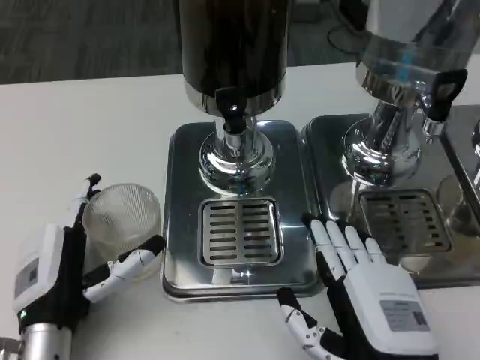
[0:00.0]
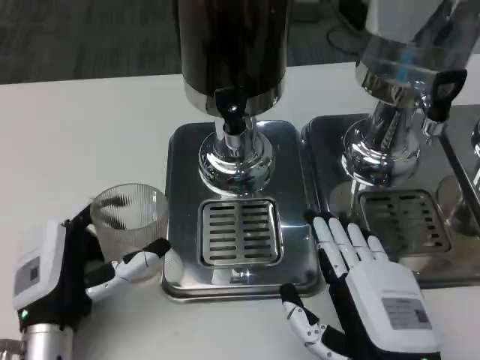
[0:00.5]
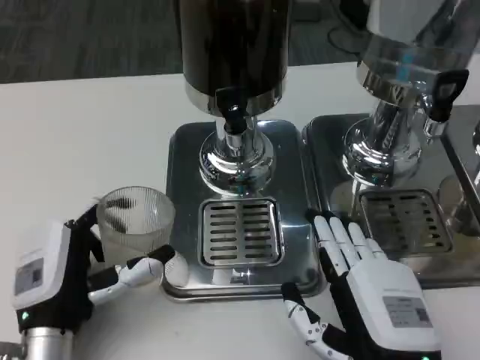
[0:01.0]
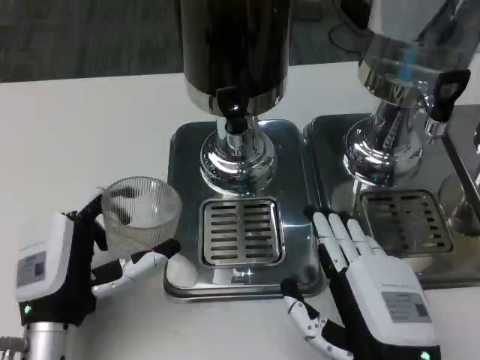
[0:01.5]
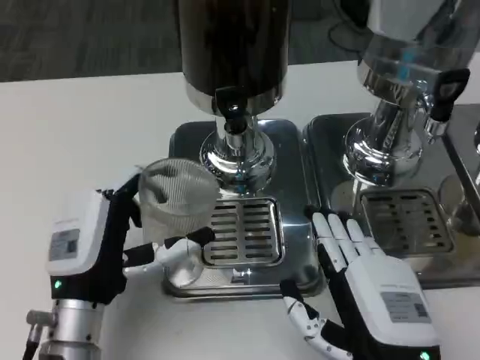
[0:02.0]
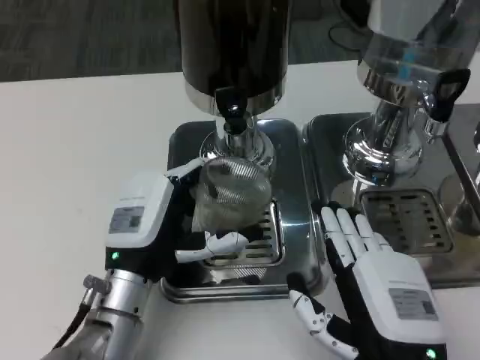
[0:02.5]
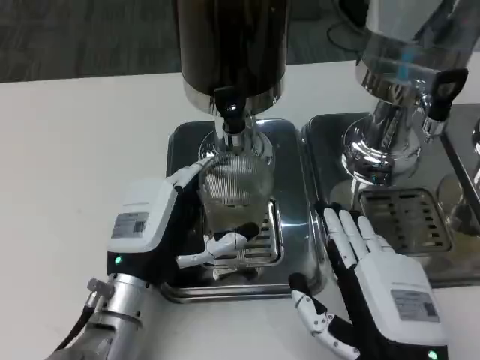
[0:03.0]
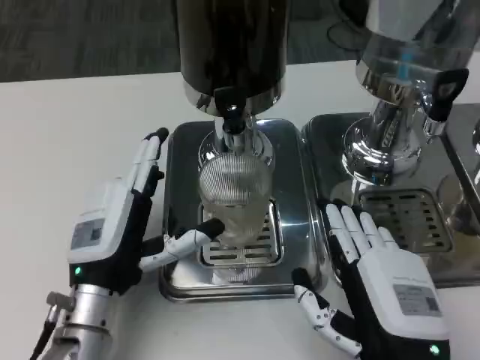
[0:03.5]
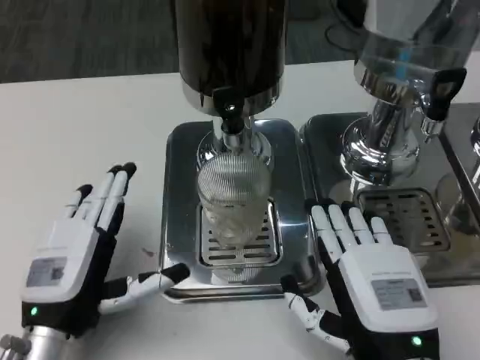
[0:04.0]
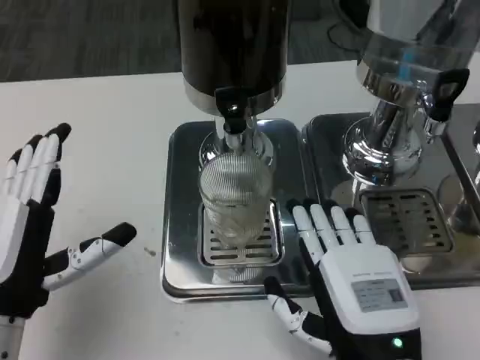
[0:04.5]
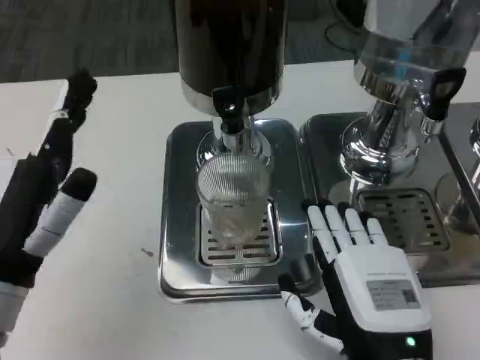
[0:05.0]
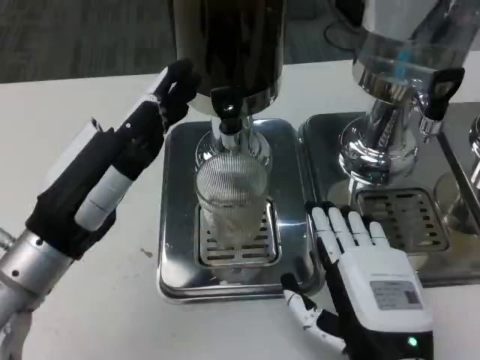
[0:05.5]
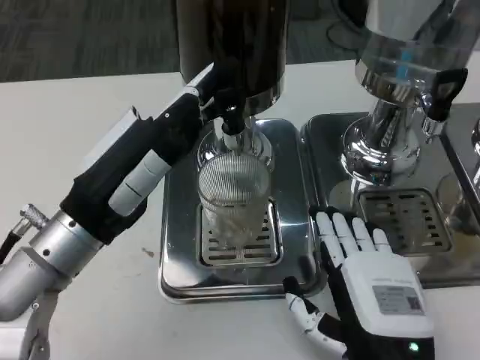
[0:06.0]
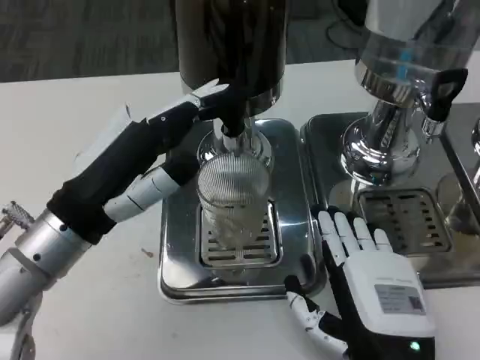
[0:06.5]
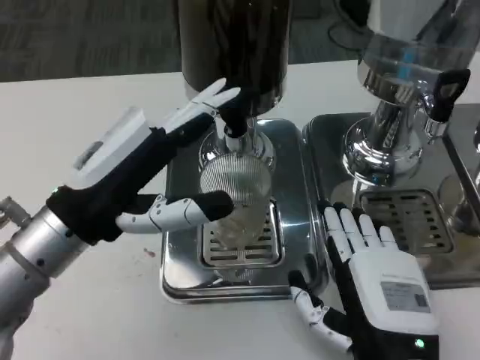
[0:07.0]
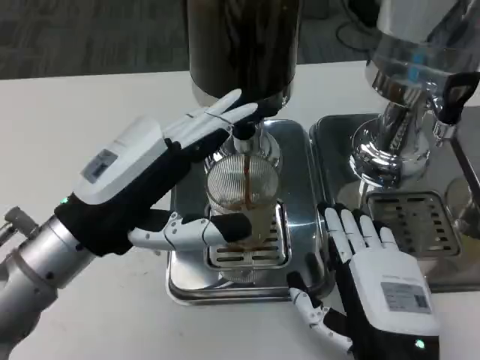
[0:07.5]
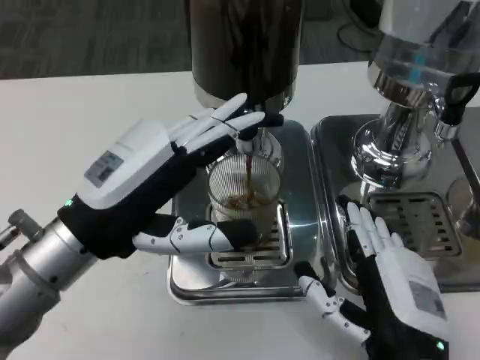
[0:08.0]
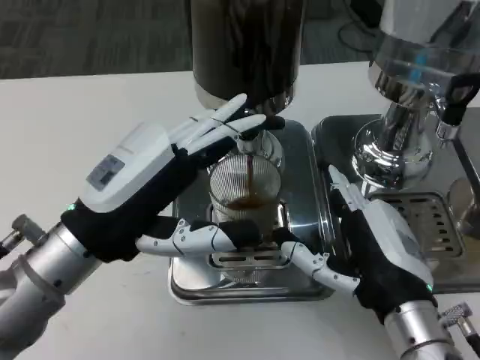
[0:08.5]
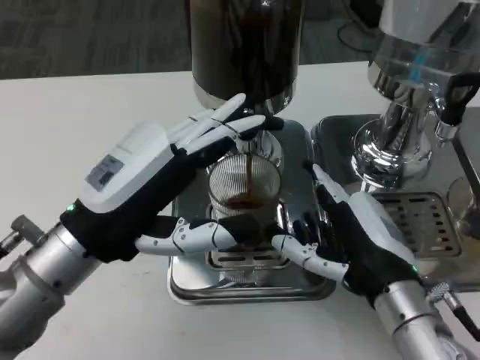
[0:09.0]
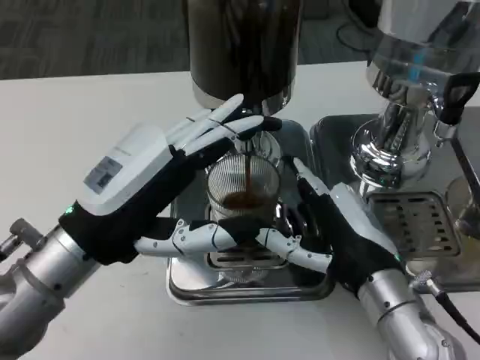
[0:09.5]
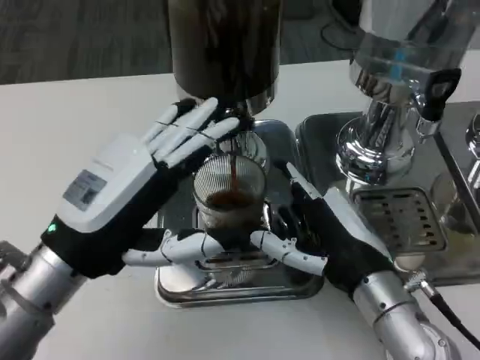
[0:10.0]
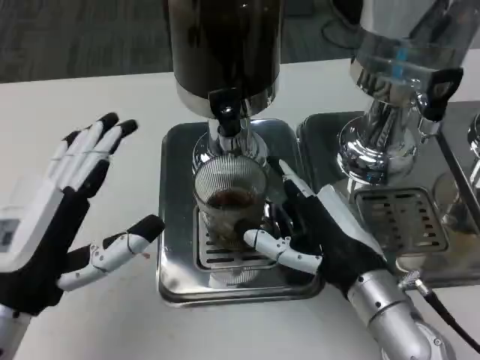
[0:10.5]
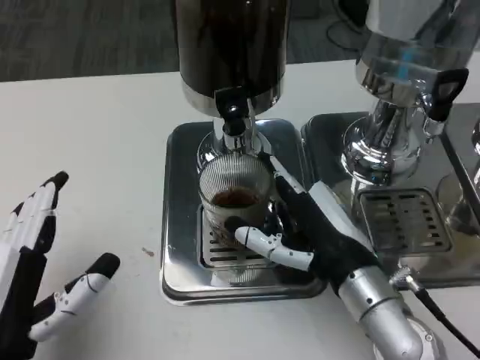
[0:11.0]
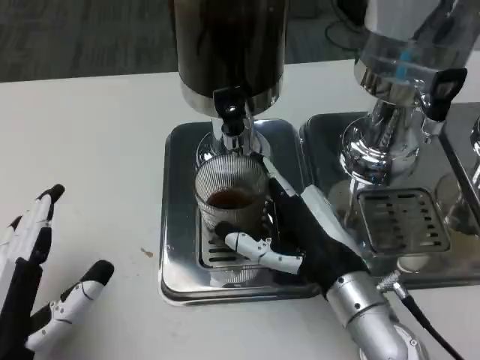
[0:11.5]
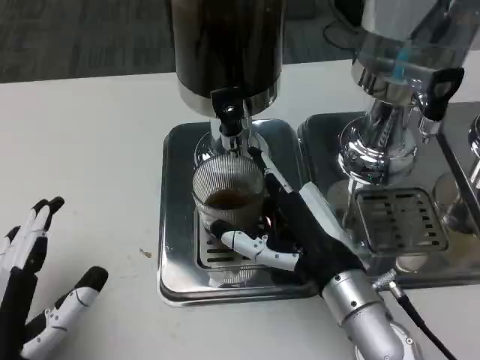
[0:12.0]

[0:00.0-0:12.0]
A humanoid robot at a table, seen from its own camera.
Task of the whole recording: Grasp the cup under the faucet to collect the drink, then remove the cup.
0:04.0 to 0:06.0: The left hand moves upward and forward, roughly 15 cm.
0:08.0 to 0:10.0: The right hand travels forward by approximately 10 cm.
0:10.0 to 0:12.0: The left hand shifts approximately 15 cm backward and downward.

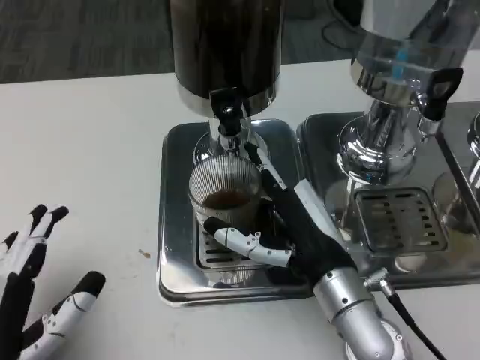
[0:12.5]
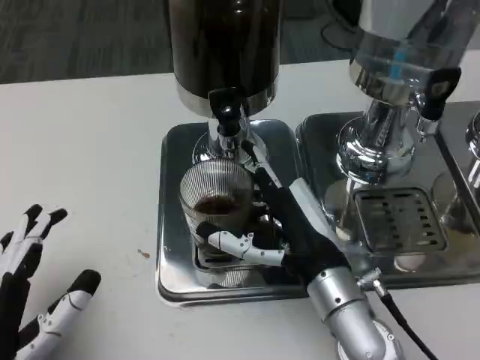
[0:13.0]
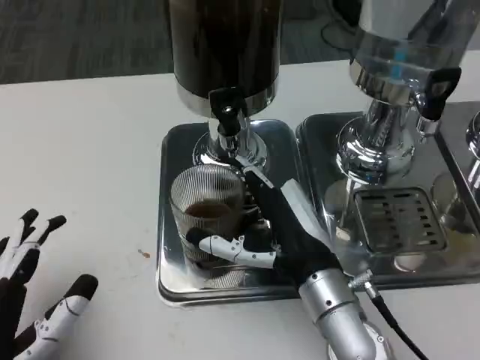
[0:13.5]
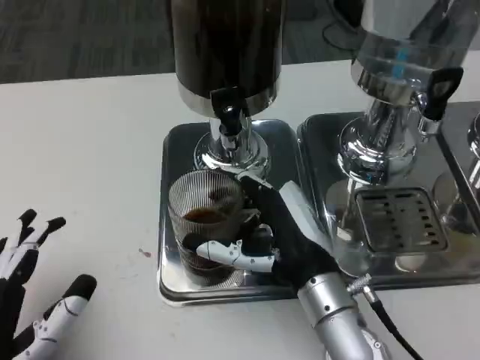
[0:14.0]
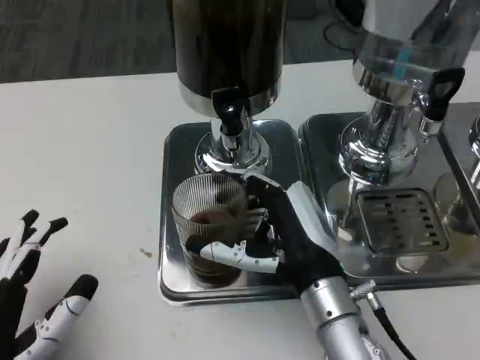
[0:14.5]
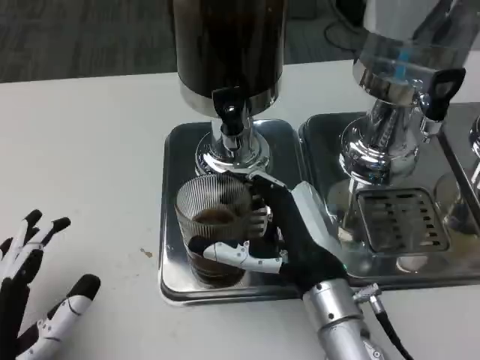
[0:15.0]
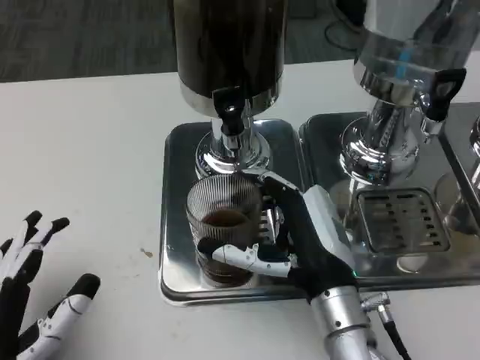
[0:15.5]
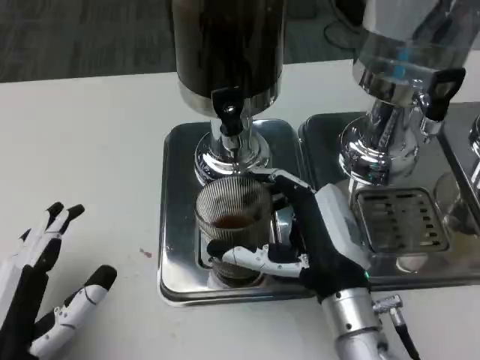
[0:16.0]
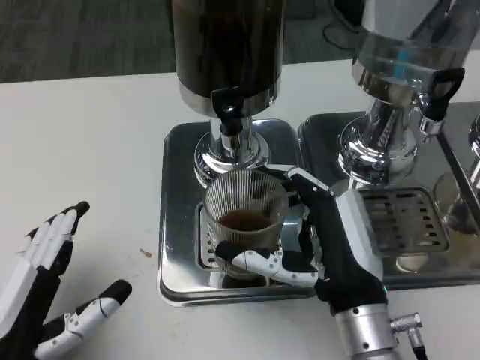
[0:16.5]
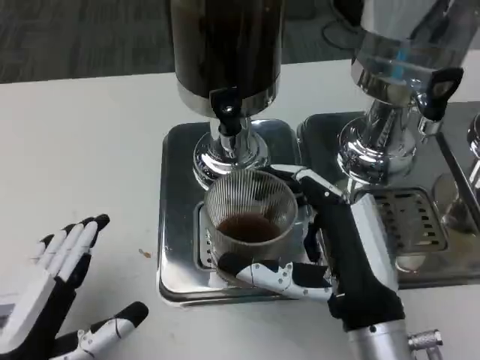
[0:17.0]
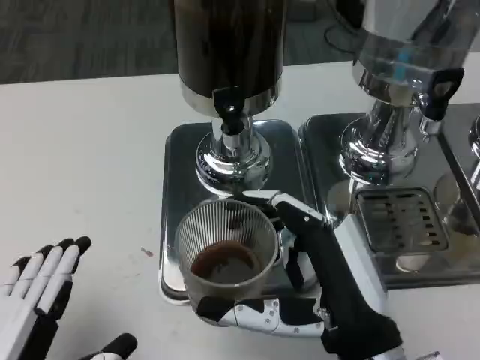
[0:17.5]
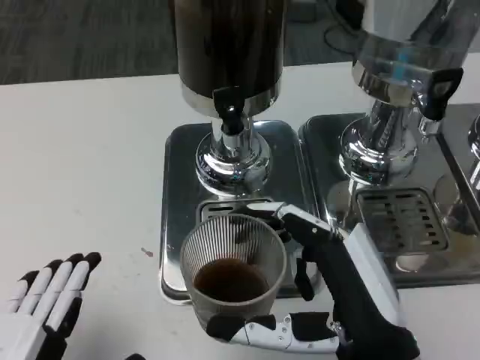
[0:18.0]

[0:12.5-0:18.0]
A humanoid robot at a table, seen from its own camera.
Task of the whole recording: Grasp the cup under the faucet to collect the drink, then remove the cup.
0:12.5 to 0:16.0: The hands make only small movements.
0:16.0 to 0:18.0: The two hands go roughly 5 cm backward.

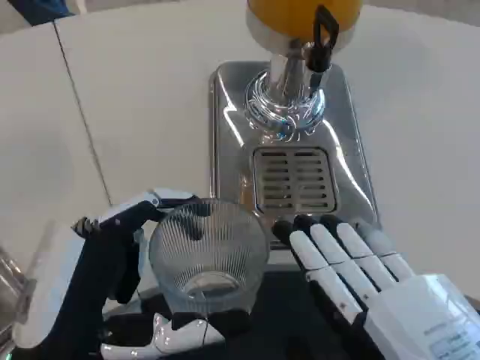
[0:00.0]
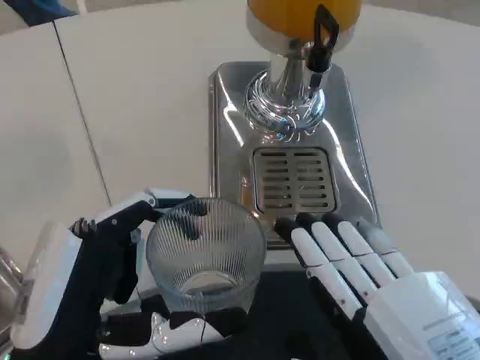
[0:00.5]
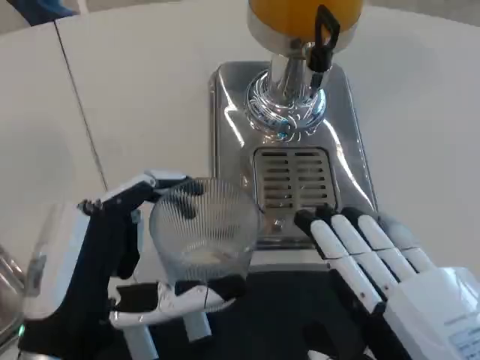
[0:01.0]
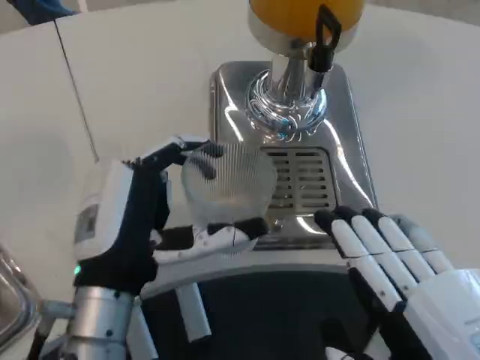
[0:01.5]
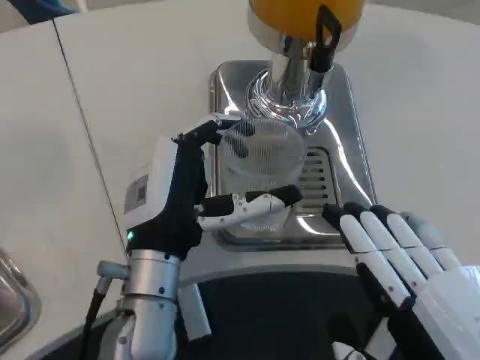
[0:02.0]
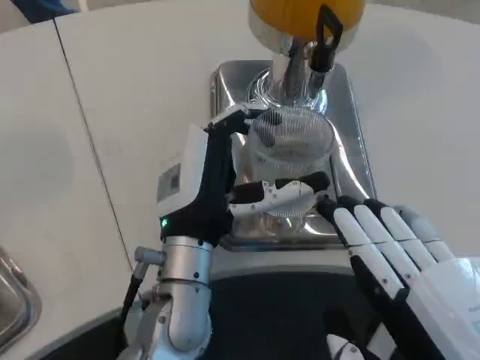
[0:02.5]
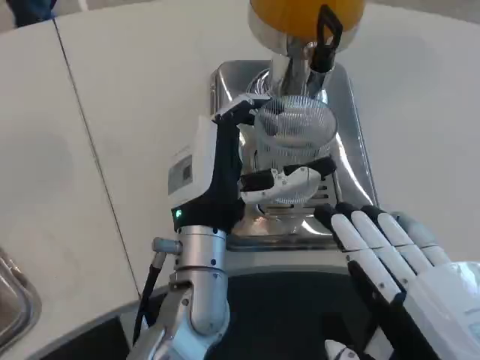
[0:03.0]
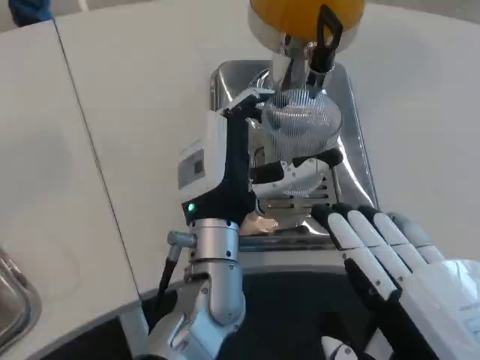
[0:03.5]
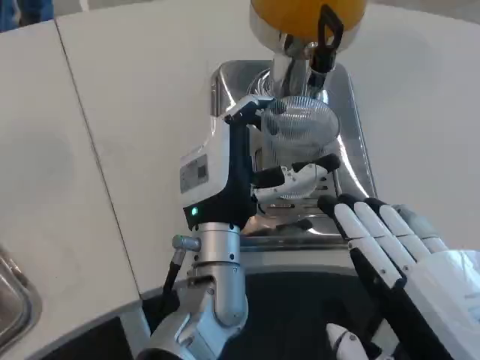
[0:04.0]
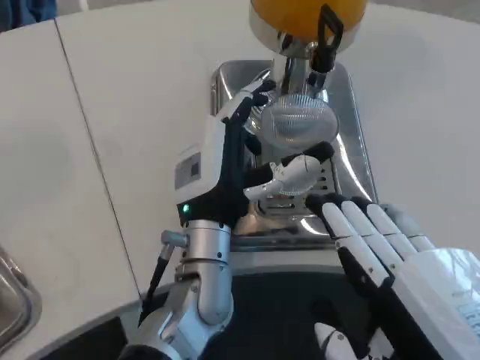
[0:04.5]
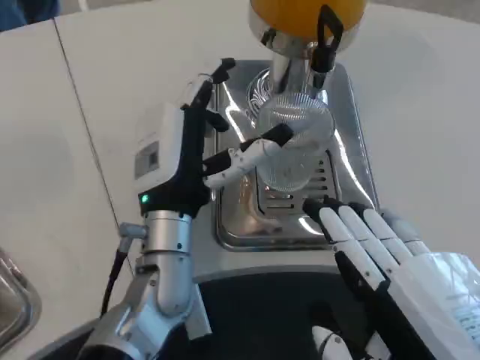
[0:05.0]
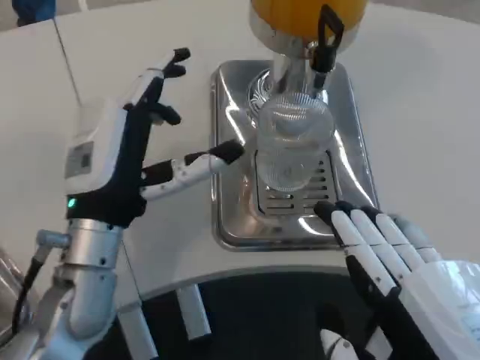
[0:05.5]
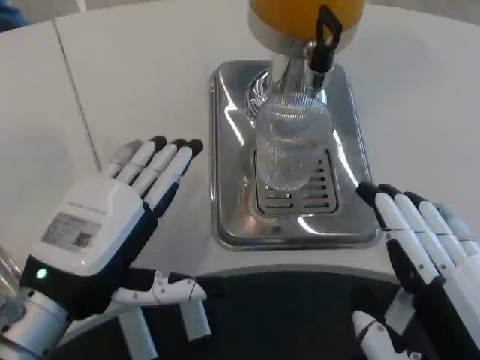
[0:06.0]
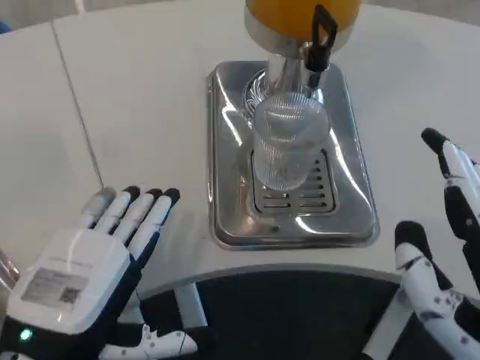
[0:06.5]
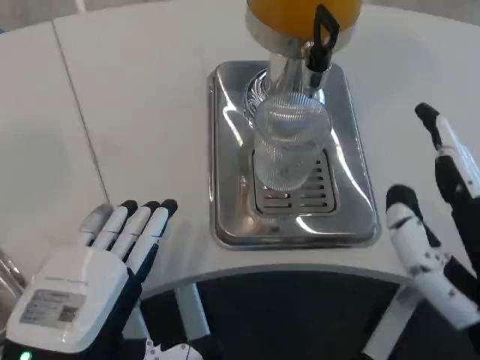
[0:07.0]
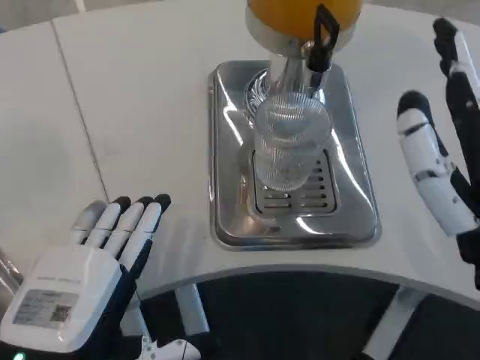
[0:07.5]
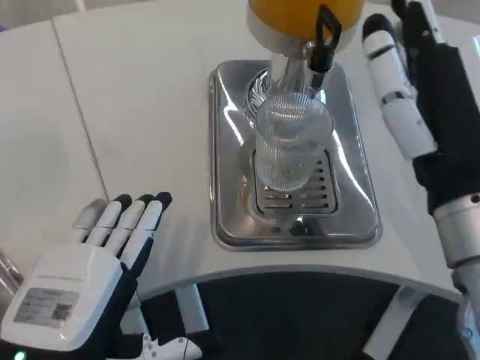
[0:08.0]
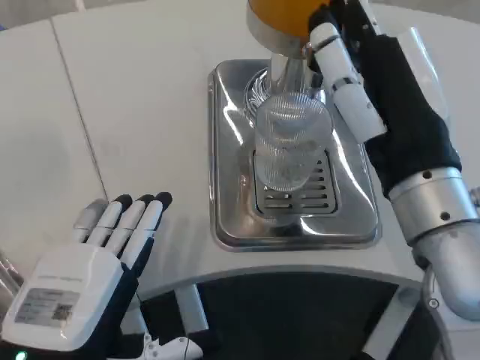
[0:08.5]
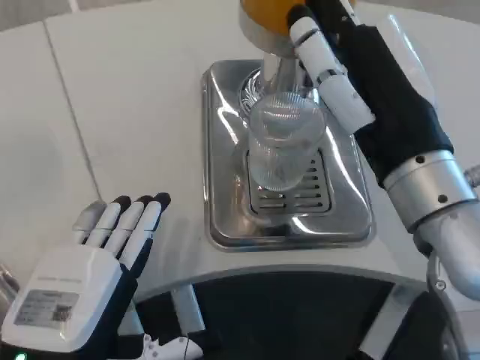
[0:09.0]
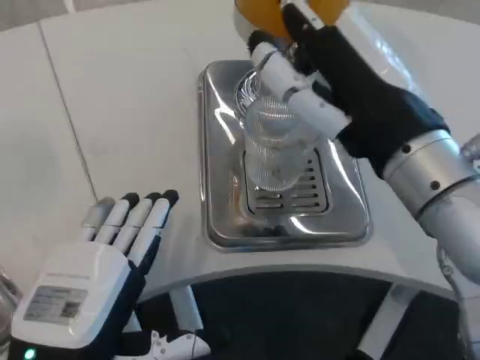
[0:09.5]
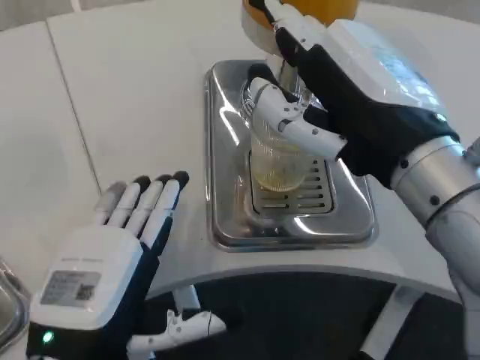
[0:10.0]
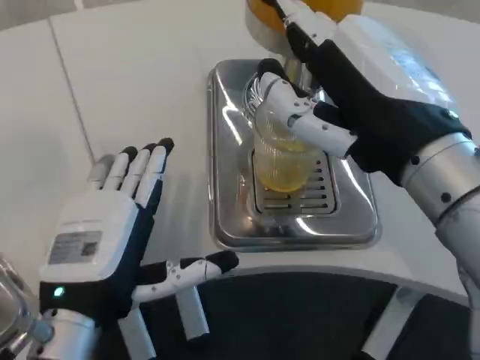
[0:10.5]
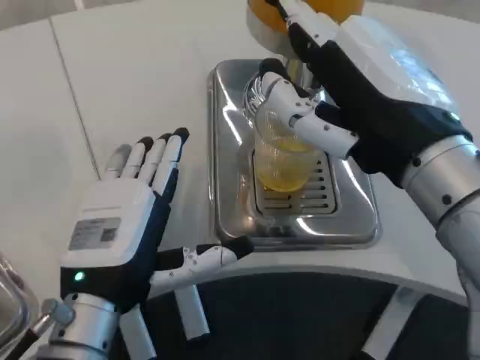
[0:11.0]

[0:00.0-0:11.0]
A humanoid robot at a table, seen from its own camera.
Task of the whole recording: Grasp the cup under the faucet to collect the drink, then remove the cup.
0:00.0 to 0:02.0: The left hand heads forward and to the right, covering approximately 15 cm.
0:02.0 to 0:03.5: The left hand travels to the right by about 5 cm.
0:03.5 to 0:05.5: The left hand heads to the left, covering about 15 cm.
0:05.5 to 0:07.5: The right hand goes about 10 cm forward; the left hand goes some 15 cm backward.
0:07.5 to 0:09.0: The right hand moves forward, about 5 cm.
0:09.0 to 0:11.0: The left hand goes approximately 5 cm forward.
